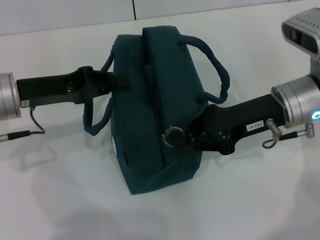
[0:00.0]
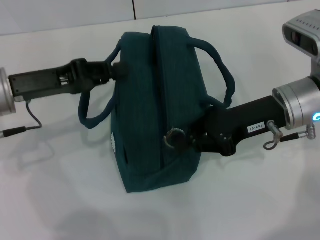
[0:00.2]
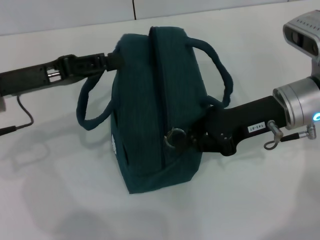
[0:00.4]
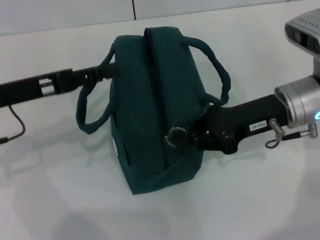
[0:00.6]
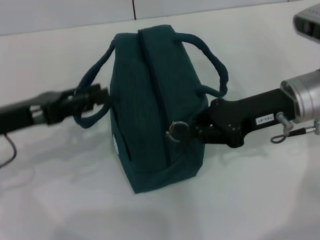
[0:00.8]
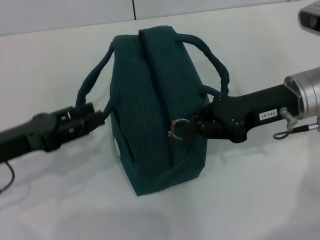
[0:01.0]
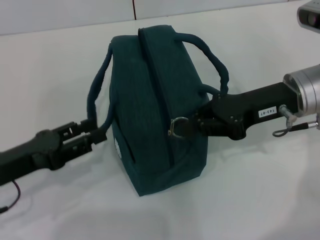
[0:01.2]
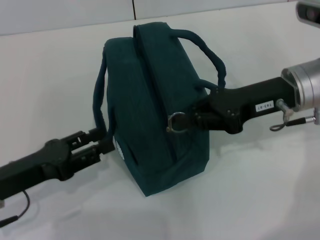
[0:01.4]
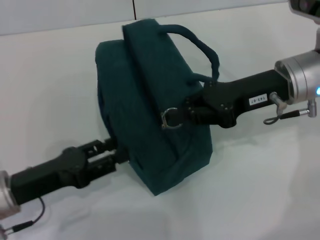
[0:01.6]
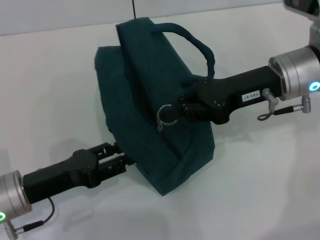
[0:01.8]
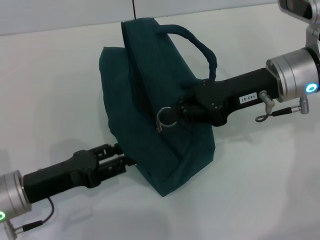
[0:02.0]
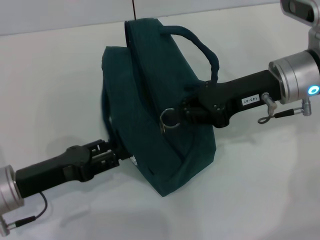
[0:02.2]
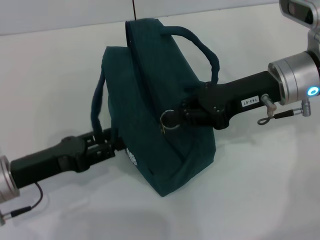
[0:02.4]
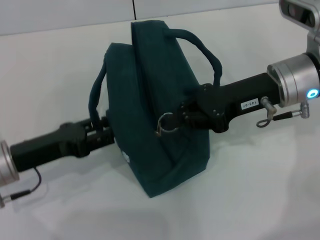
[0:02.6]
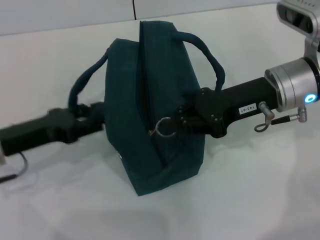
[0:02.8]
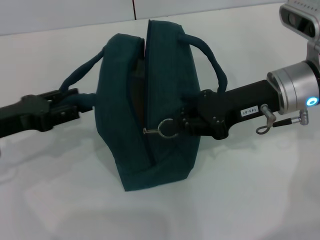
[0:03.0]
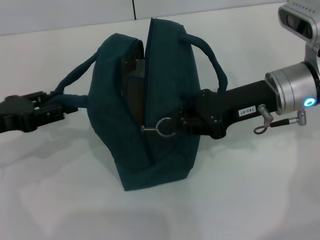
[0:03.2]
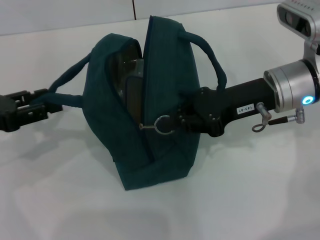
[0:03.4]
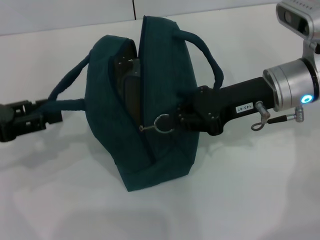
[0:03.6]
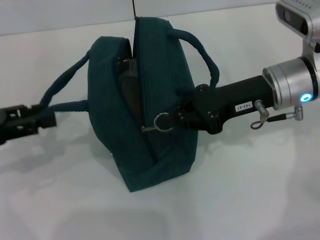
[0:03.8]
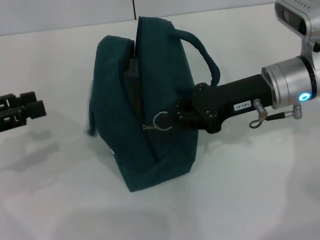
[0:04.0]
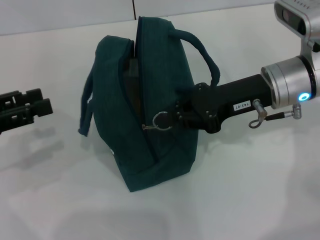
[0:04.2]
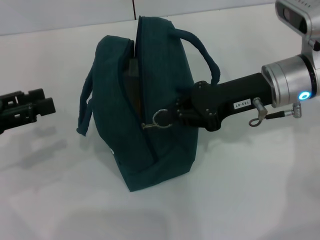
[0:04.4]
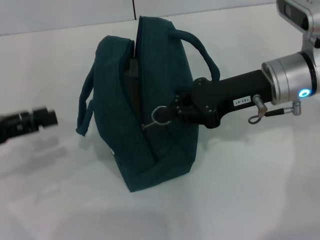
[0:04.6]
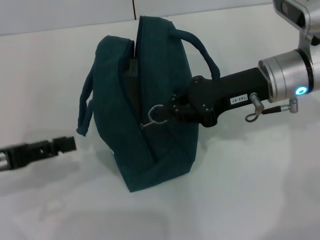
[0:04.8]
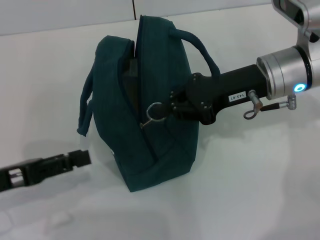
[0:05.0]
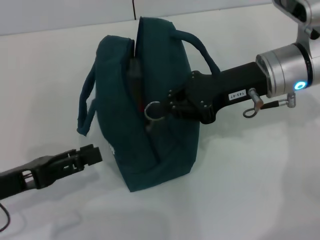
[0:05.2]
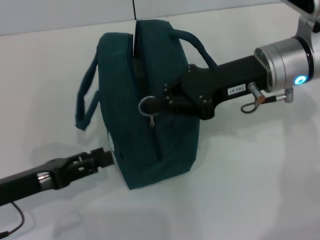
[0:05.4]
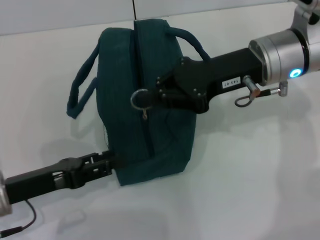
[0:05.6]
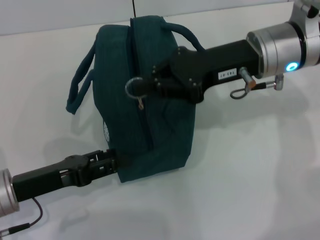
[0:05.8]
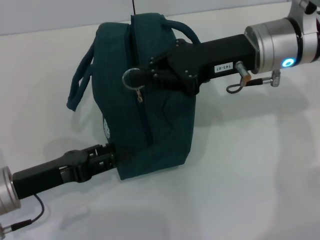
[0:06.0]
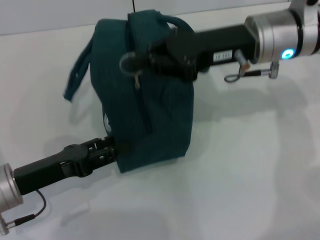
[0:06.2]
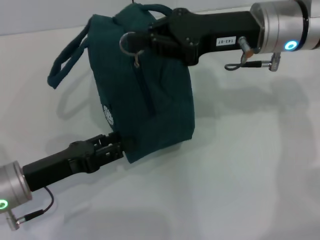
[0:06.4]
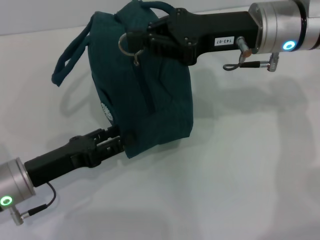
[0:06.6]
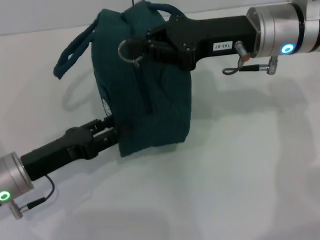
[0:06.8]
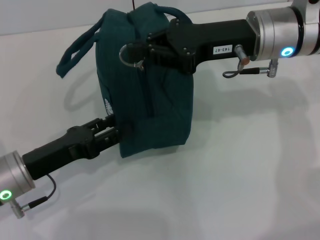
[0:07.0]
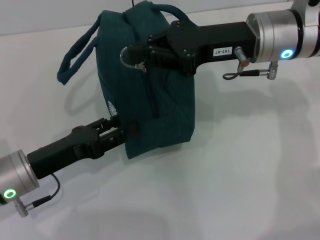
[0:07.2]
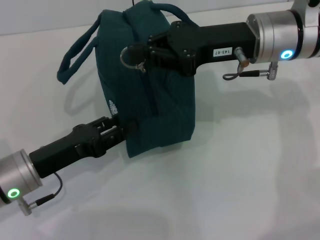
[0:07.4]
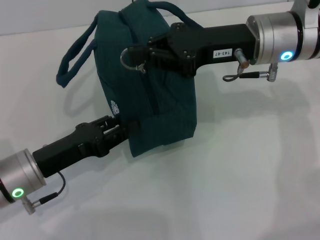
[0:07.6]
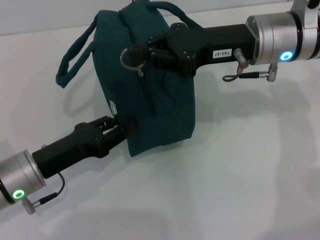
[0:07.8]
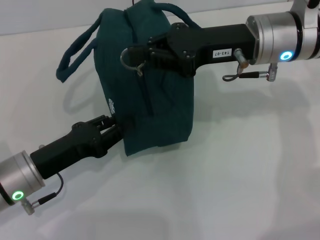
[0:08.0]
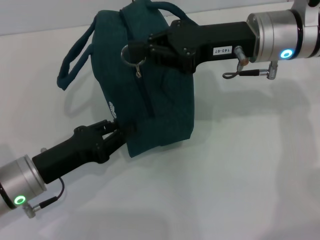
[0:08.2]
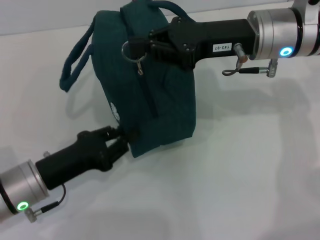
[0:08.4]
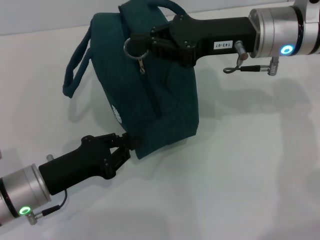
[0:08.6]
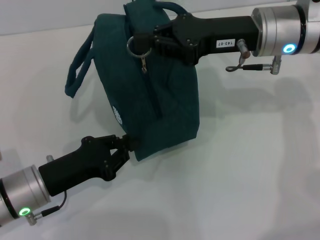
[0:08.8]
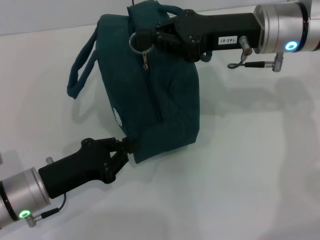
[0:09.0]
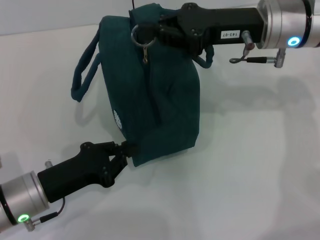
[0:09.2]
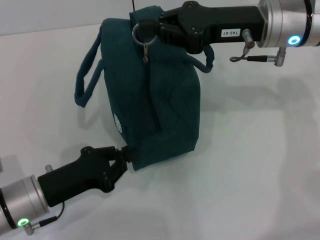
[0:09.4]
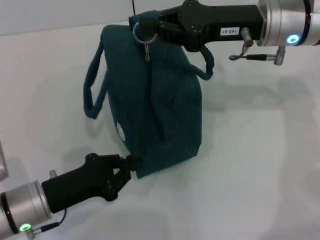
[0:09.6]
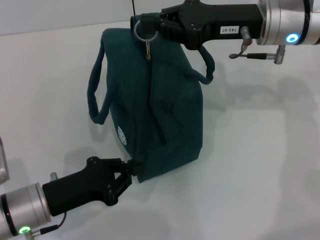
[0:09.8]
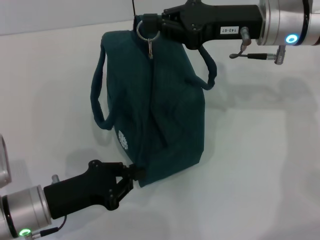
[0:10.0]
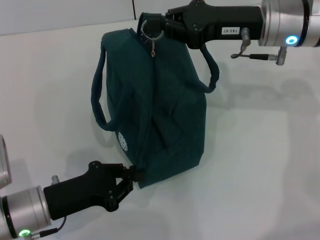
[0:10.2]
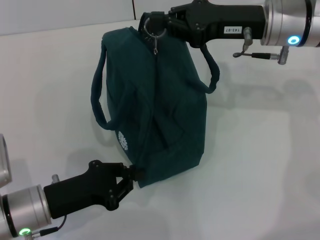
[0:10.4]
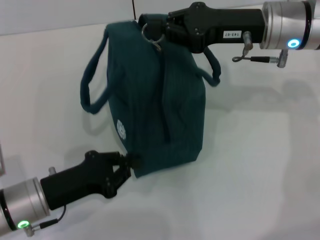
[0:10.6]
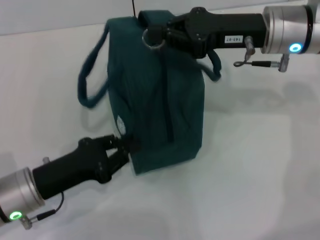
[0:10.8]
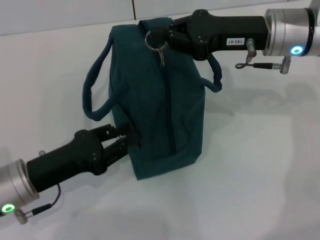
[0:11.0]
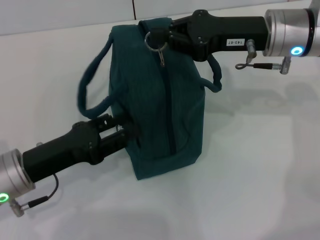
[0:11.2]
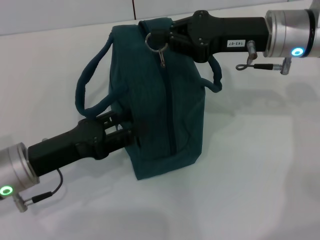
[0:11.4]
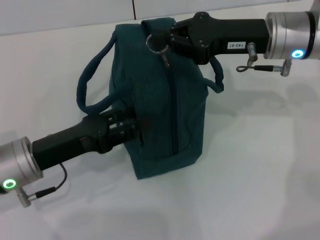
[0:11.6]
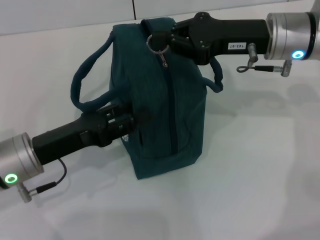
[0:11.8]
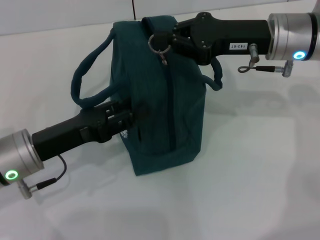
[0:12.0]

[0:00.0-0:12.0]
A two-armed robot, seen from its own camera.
0:00.0 to 0:01.6: The left gripper moves backward and downward, about 15 cm, and opens its fingers.
0:01.6 to 0:03.0: The left gripper goes approximately 10 cm forward and upward.
0:03.0 to 0:04.4: The left gripper ends up some 5 cm from where it was.
0:04.4 to 0:06.0: The right gripper shifts by roughly 5 cm. Meanwhile the left gripper moves downward and to the right, roughly 10 cm.
0:07.6 to 0:09.0: The left gripper closes.
0:10.4 to 0:12.0: The left gripper goes roughly 5 cm upward, and opens.

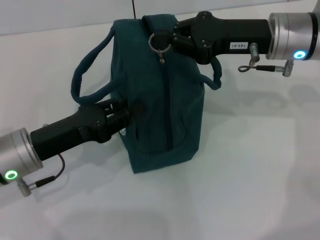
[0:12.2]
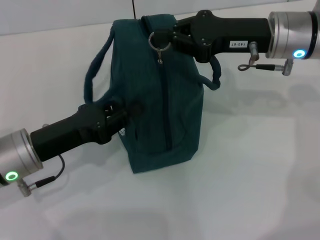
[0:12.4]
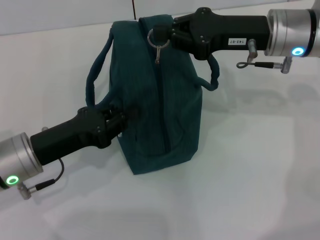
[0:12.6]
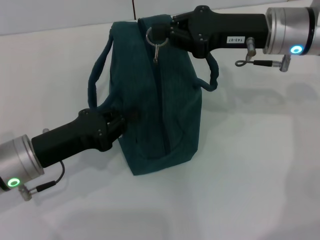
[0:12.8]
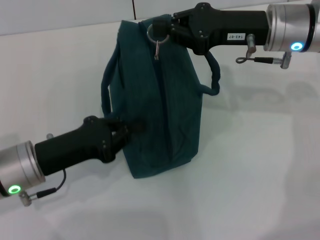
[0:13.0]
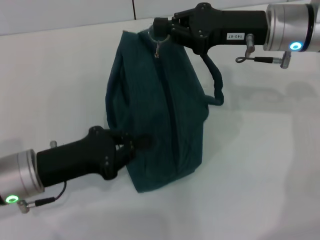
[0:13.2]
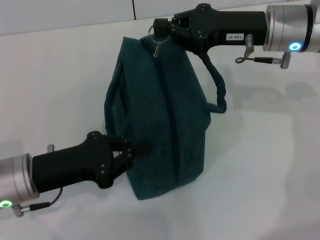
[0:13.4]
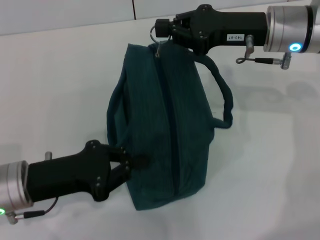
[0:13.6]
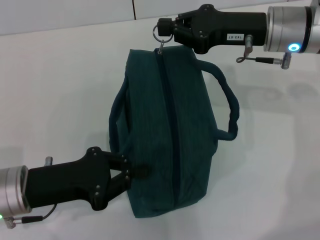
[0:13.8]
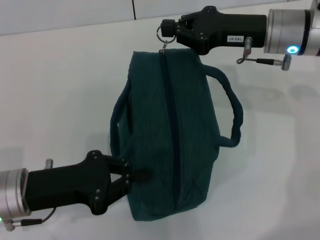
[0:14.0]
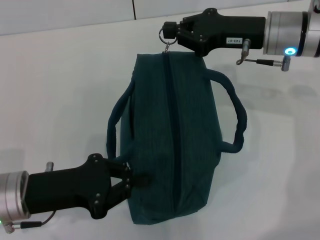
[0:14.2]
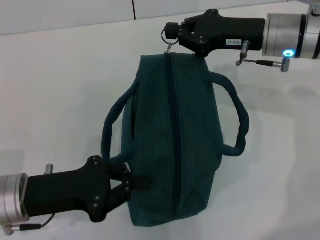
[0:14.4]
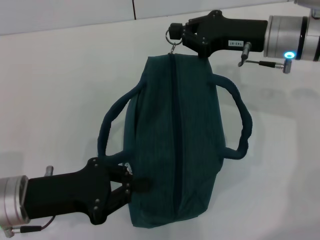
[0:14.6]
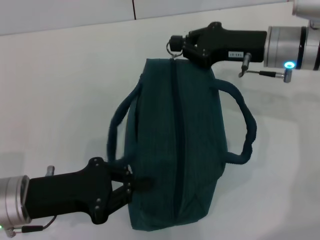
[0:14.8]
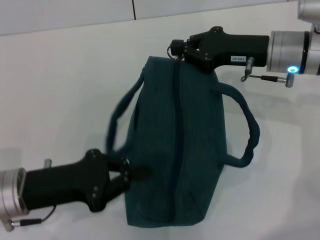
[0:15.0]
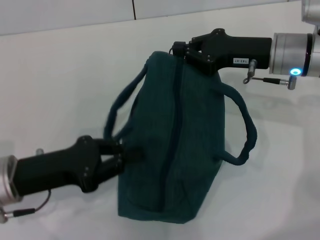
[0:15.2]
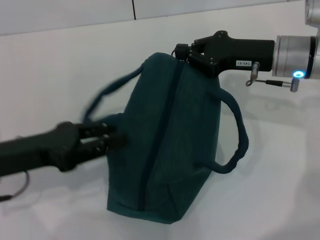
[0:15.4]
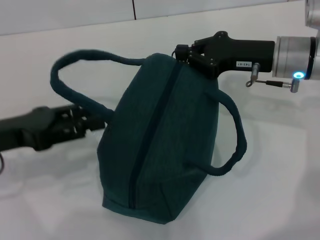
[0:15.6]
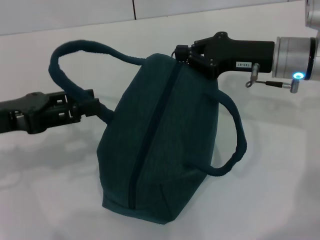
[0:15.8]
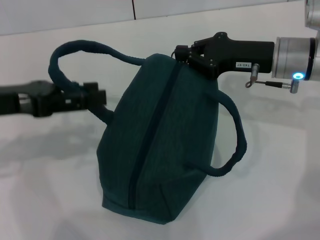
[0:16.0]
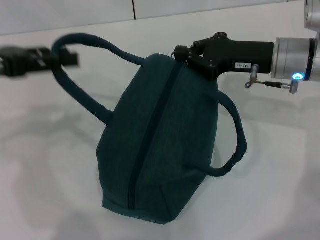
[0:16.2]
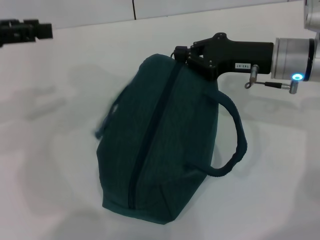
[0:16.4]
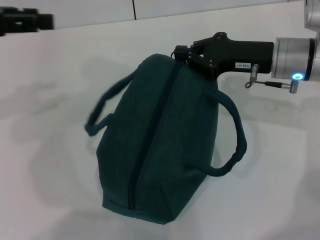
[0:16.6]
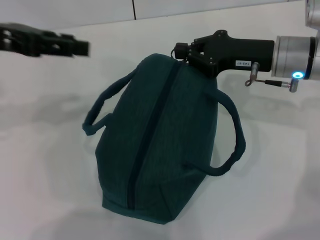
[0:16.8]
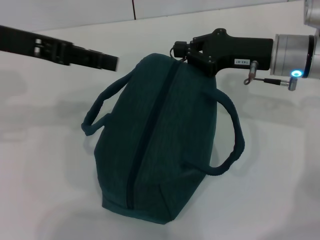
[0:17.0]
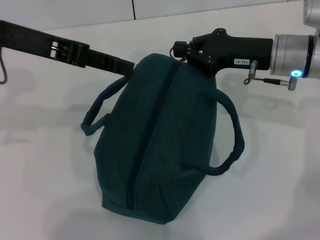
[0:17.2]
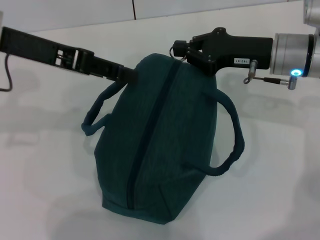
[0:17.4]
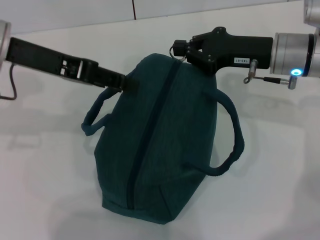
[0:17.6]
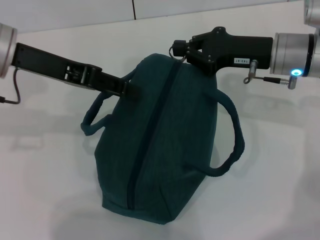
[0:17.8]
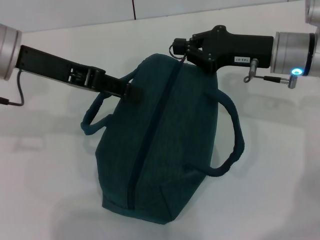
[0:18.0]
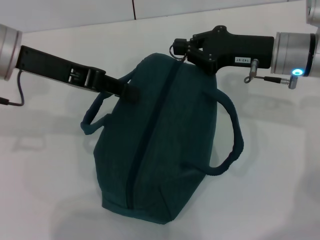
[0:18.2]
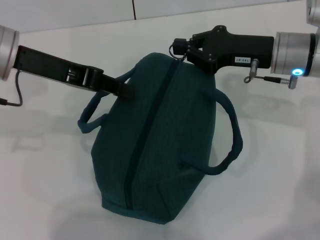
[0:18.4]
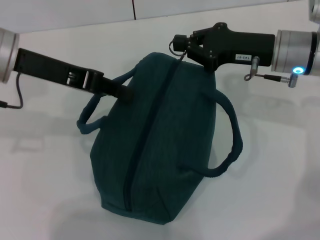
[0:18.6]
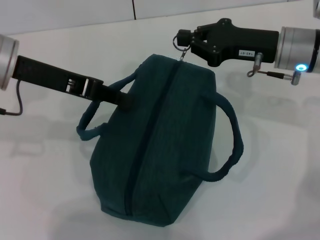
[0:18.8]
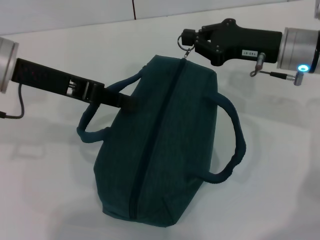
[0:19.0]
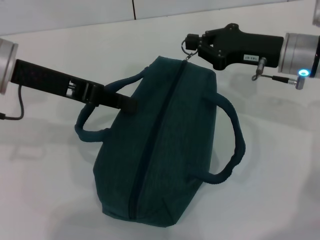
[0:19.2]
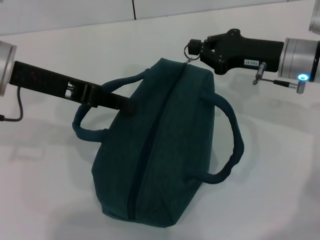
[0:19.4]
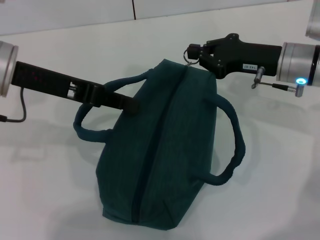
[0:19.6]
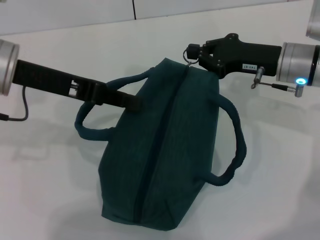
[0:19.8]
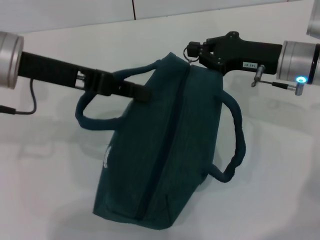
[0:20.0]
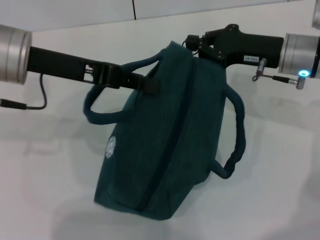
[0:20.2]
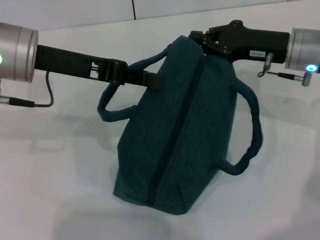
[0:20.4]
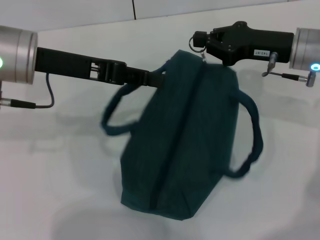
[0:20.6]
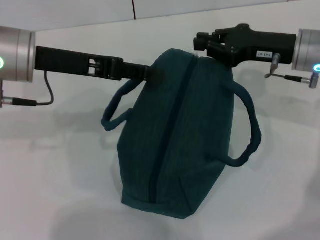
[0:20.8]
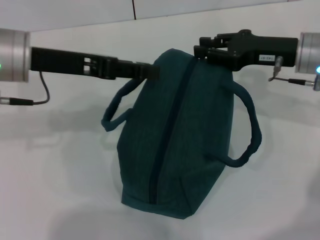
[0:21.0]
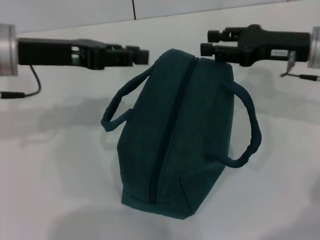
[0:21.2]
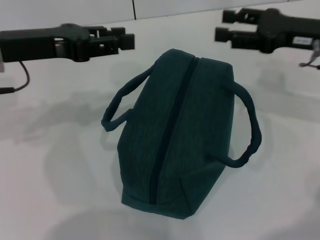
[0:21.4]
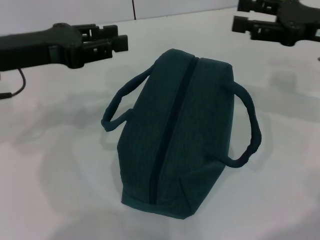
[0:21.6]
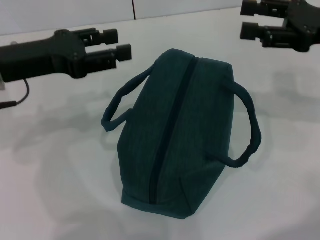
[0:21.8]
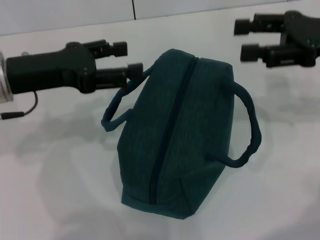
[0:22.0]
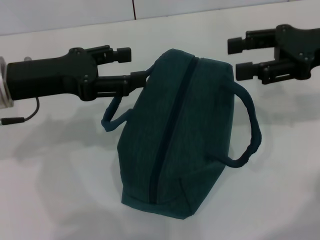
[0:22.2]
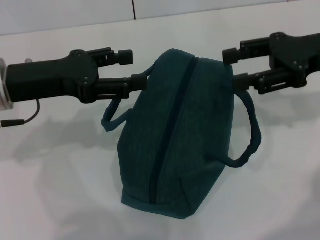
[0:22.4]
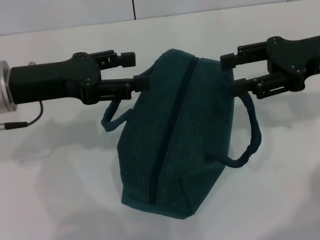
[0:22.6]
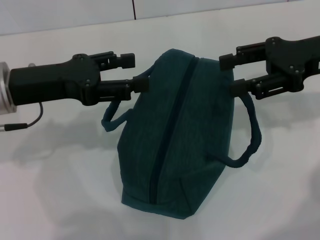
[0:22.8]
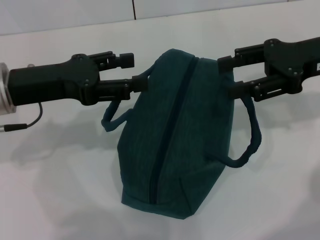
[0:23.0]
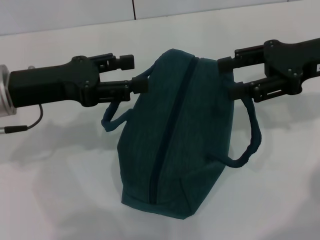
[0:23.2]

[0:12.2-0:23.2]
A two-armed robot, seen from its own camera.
Step, 0:12.2 to 0:20.8: Zip up the lunch bag with your right hand.
0:12.2 to 0:13.8: The left gripper closes its fingers.
0:15.4 to 0:17.0: The left gripper travels upward and forward by approximately 15 cm, and opens its fingers.
0:17.0 to 0:18.4: The left gripper closes up.
0:18.4 to 0:20.0: The grippers make only small movements.
0:20.0 to 0:21.6: The left gripper opens up, while the right gripper travels to the right and upward by roughly 10 cm, and opens up.
0:21.6 to 0:23.2: The left gripper opens its fingers.
